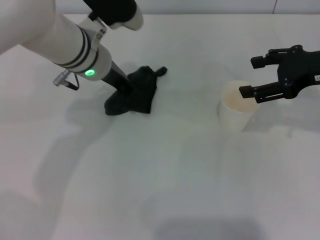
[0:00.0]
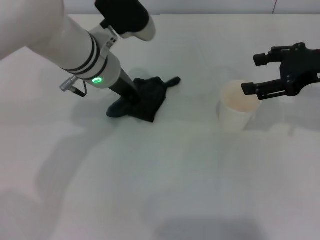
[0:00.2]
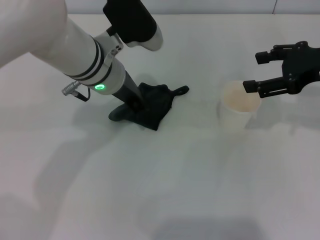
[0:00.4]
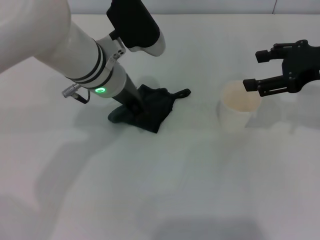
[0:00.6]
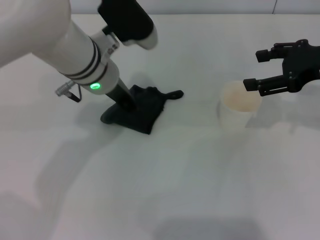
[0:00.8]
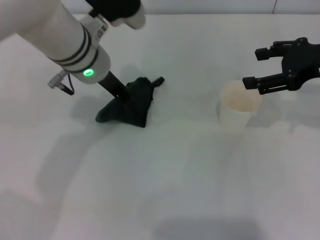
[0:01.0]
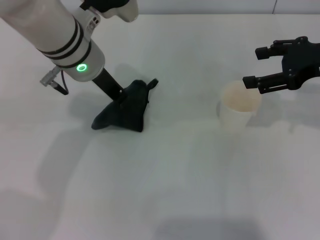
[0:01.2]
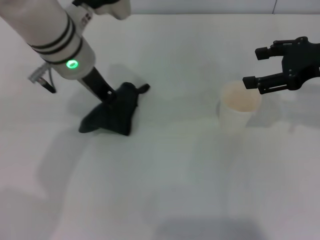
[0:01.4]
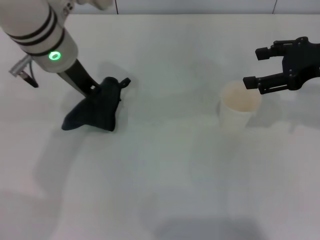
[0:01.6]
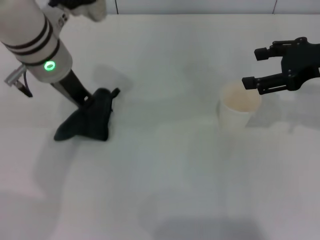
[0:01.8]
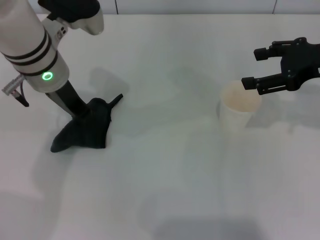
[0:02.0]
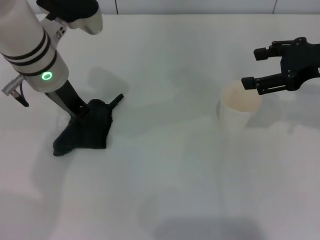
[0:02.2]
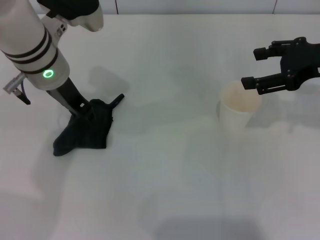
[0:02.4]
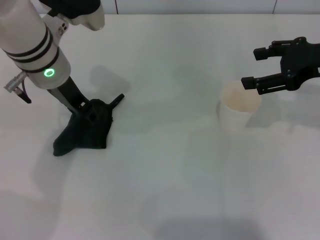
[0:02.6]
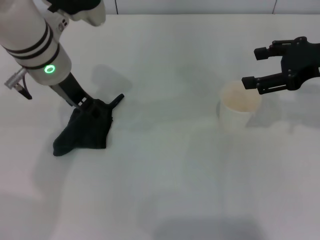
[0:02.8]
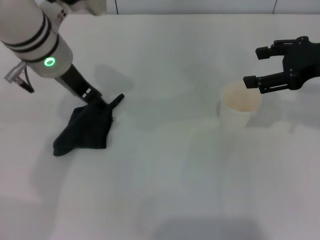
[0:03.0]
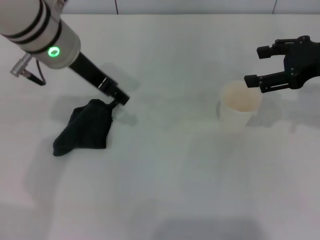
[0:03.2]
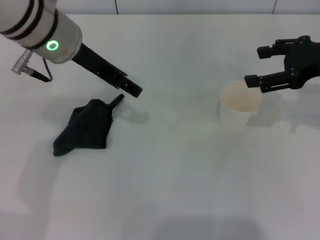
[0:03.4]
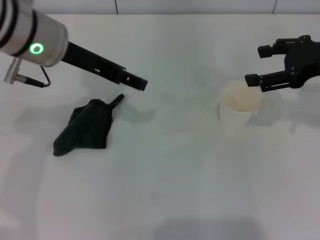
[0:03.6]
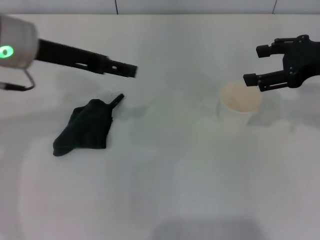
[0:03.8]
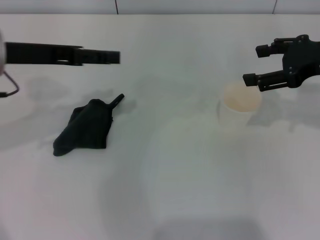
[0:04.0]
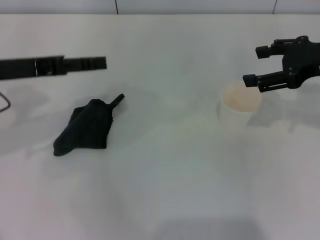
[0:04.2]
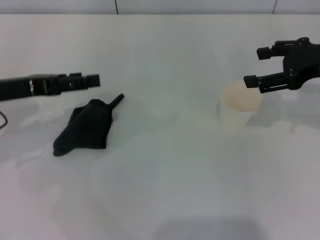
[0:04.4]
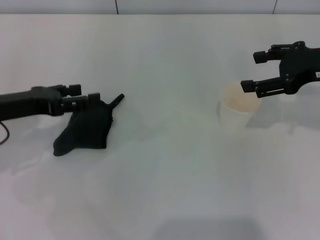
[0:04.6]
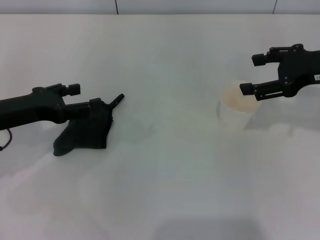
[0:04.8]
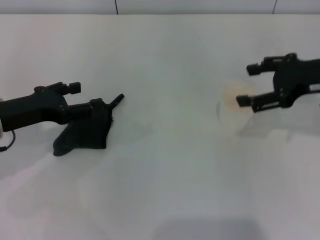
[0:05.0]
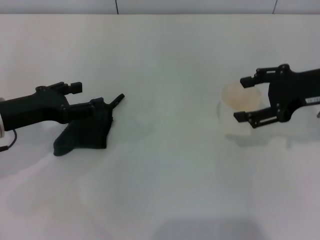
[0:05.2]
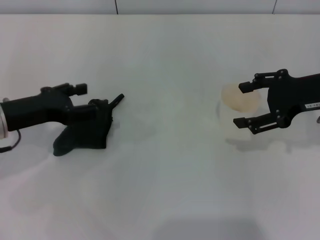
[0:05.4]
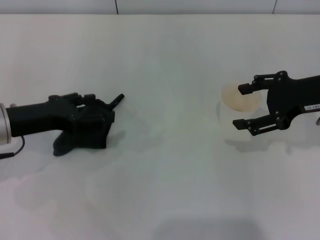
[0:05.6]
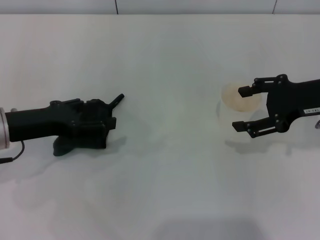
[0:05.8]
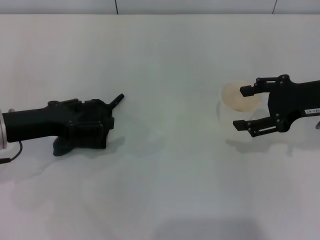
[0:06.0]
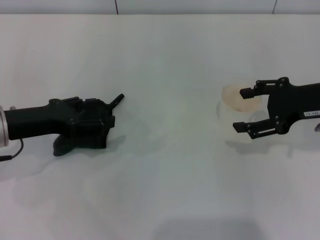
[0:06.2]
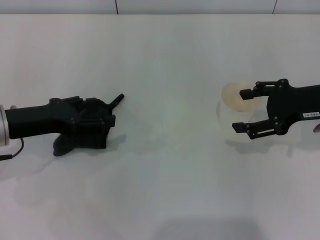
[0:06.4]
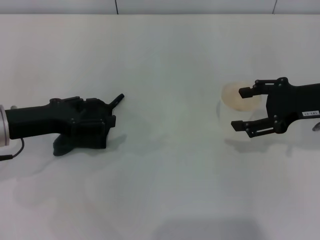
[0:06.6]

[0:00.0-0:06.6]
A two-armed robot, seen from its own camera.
Step, 0:01.8 to 0:03.0: Place the rag on the table with the left gripper.
0:00.0 to 0:01.6: The left gripper heads upward, covering about 5 cm.
0:01.6 to 0:03.2: The left gripper opens its fingers.
0:03.2 to 0:05.0: The left gripper moves to the left, downward and backward, some 20 cm.
0:05.0 to 0:06.6: There are only small adjustments of the grippers.
